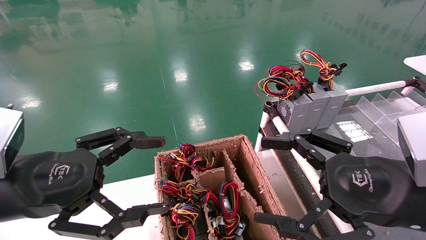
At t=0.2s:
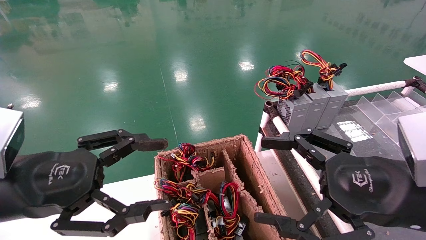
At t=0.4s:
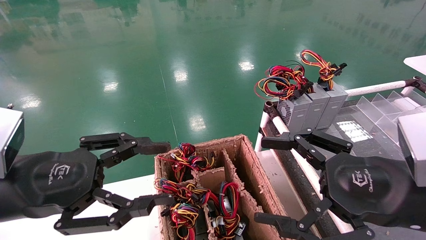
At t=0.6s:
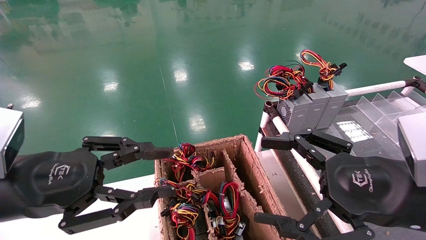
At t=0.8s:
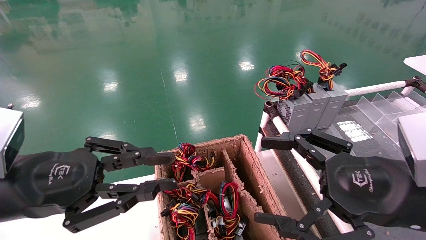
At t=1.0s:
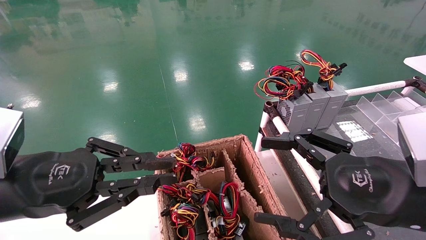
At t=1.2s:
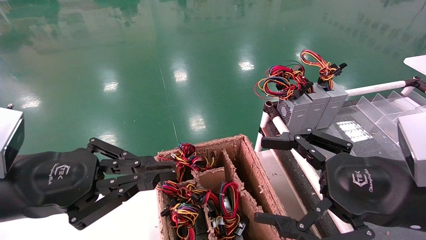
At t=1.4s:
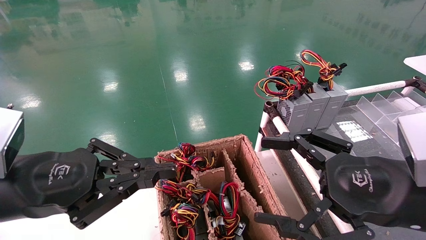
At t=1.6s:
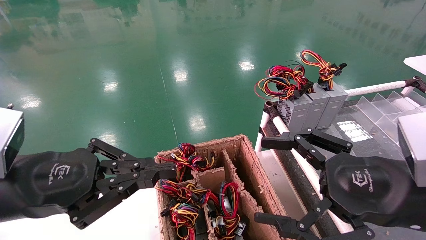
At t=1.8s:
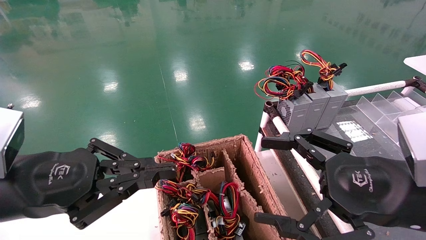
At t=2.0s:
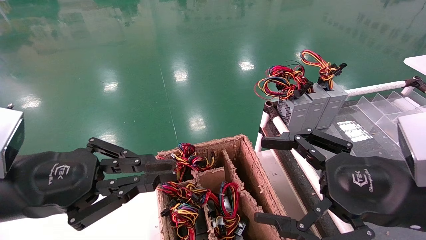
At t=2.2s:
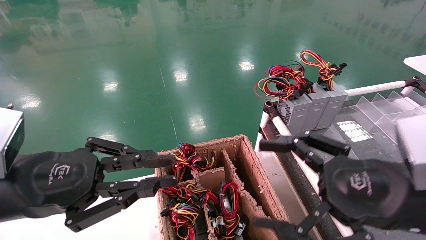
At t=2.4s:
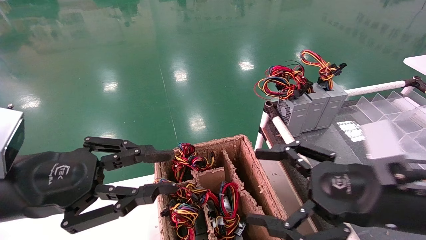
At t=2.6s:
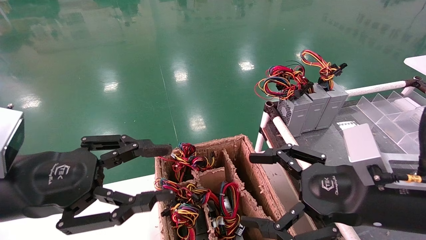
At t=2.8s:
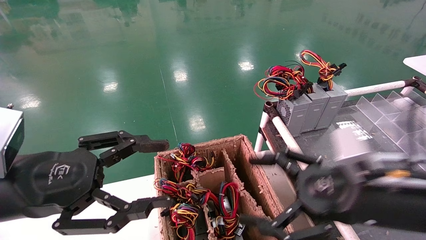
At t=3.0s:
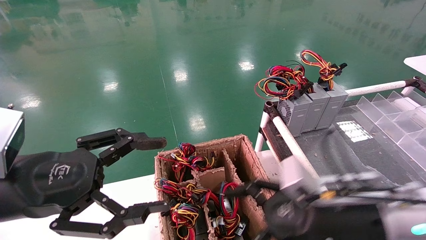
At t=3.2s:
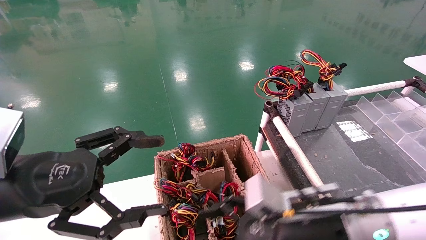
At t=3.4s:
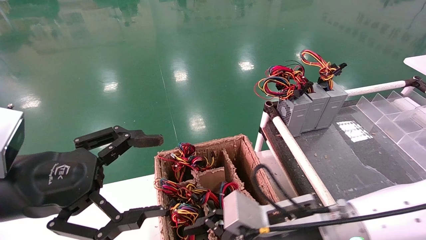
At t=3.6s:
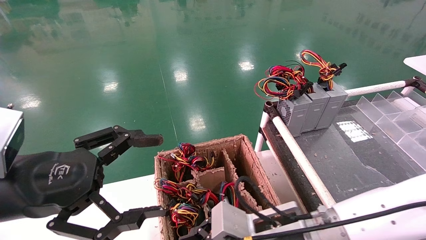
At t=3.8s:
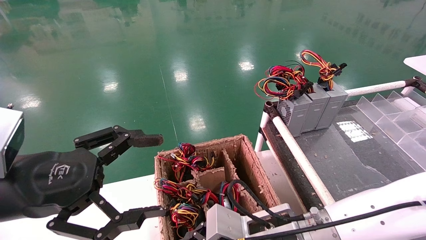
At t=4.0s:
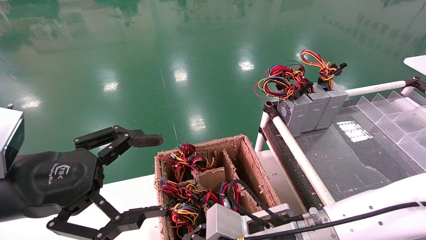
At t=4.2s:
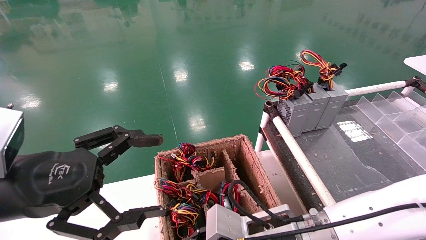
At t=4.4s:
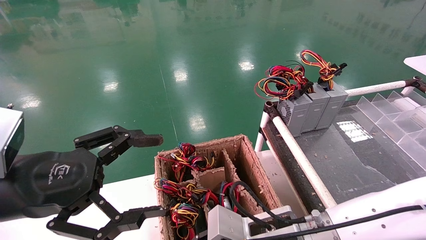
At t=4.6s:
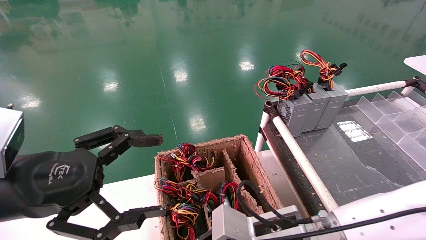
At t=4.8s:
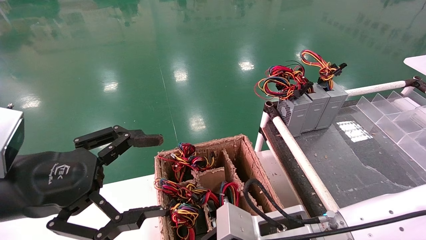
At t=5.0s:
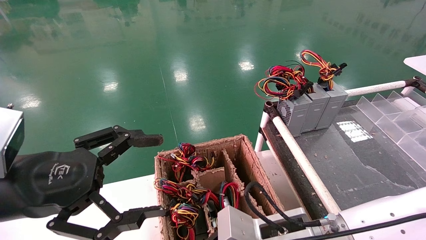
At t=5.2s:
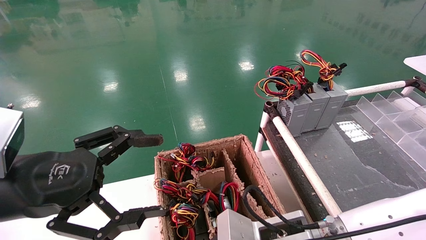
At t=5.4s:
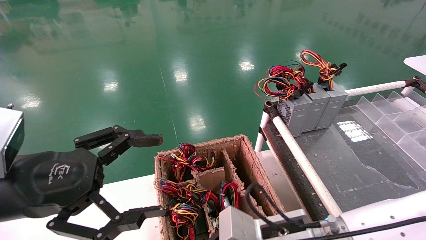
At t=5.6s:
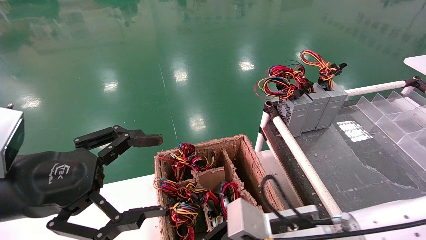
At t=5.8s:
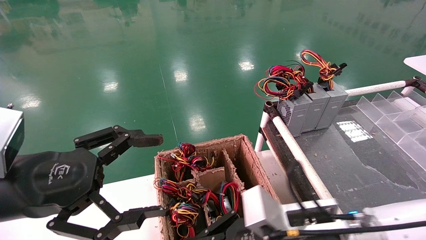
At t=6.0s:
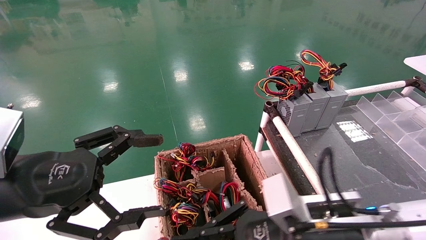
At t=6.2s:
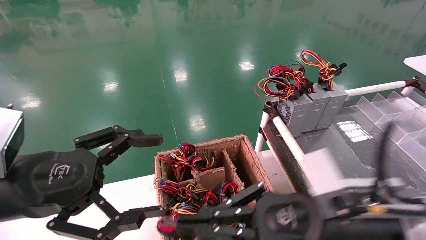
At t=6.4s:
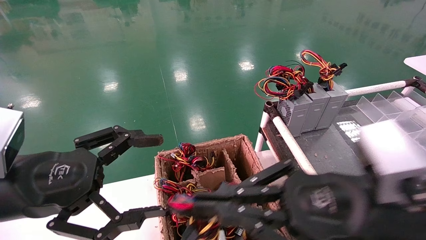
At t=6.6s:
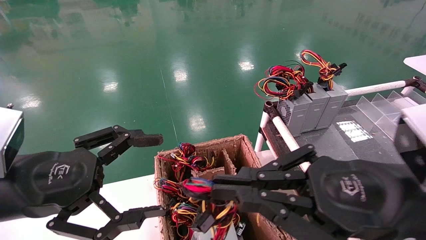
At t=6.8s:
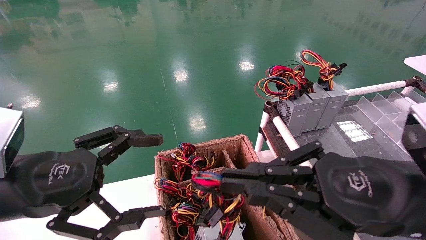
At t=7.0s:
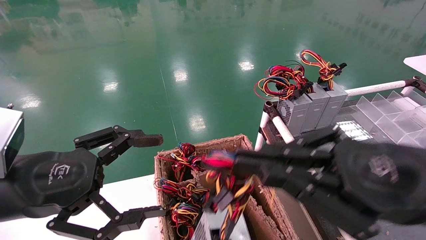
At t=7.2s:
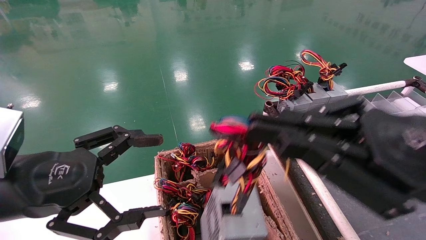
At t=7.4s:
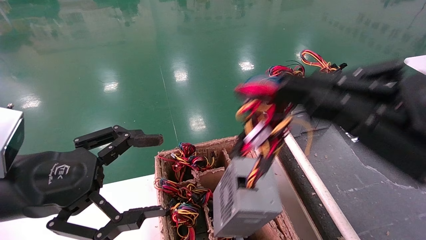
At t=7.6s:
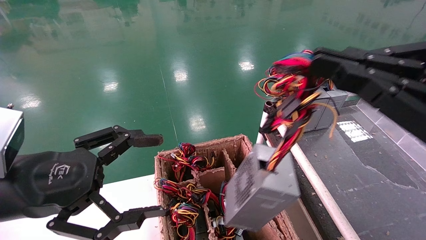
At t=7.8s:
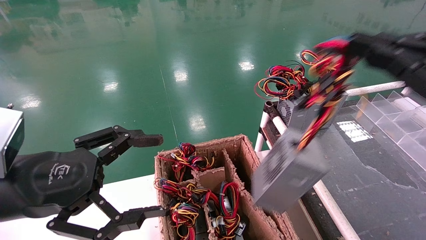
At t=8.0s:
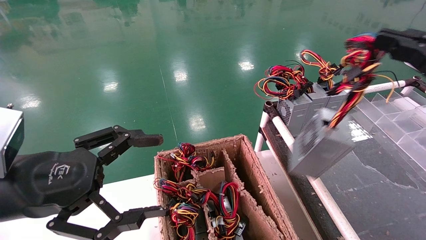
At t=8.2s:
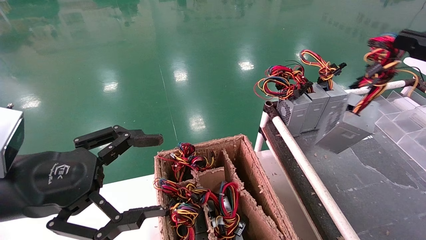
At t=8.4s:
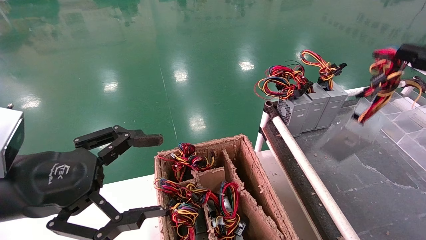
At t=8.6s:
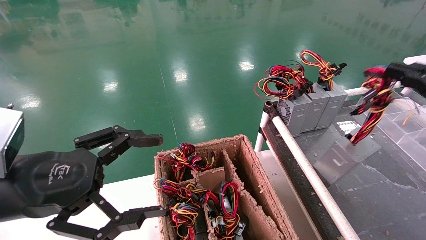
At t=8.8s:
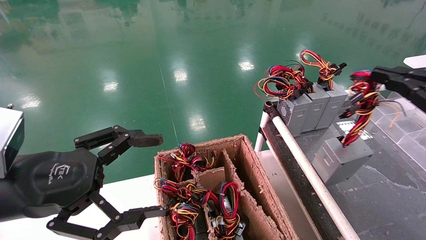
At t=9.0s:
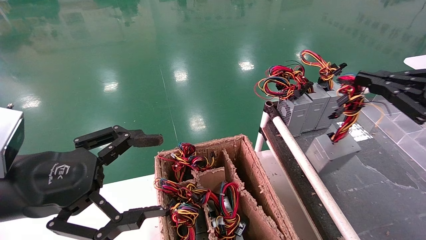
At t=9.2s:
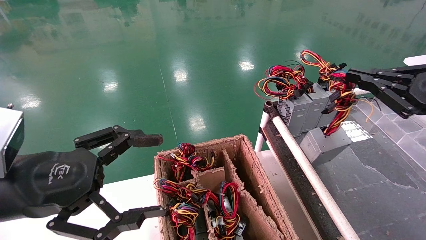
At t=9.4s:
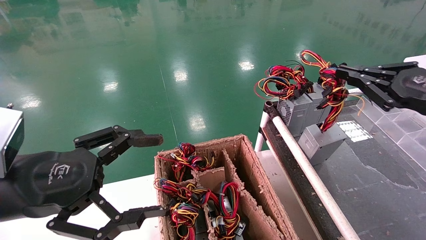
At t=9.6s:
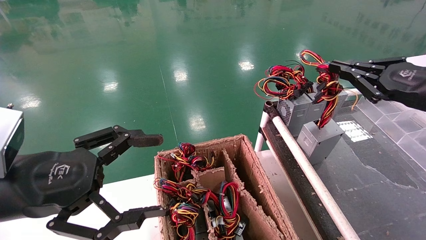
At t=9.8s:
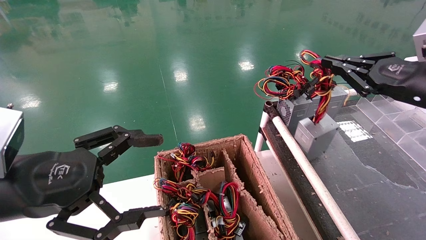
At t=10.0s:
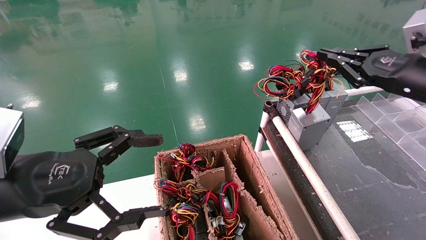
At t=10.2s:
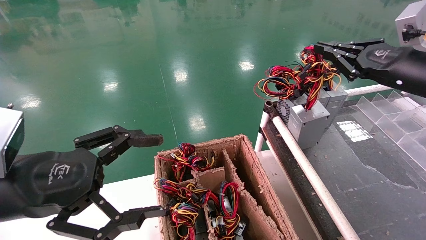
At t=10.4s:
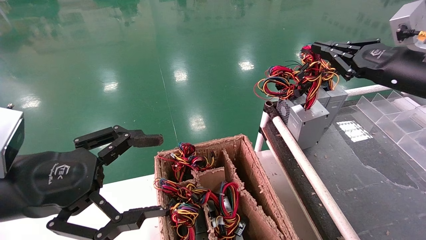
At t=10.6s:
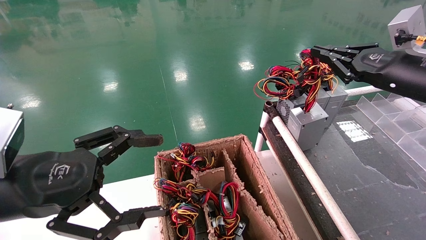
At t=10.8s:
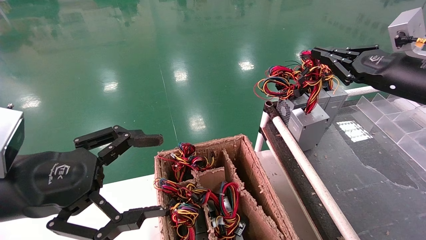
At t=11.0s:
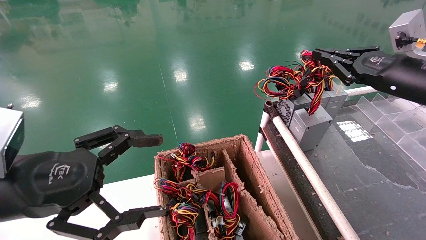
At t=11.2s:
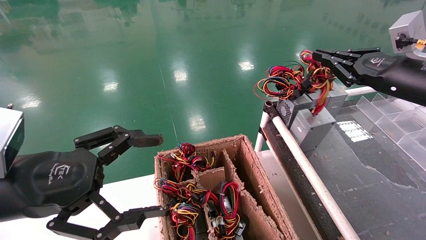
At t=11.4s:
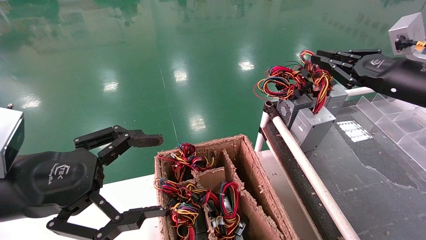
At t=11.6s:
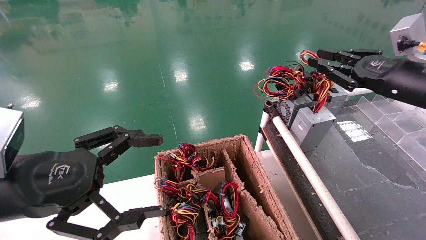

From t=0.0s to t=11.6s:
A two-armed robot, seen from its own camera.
Step, from t=1.2s to t=4.8s: Grab and lift the power supply from the large box.
Step, from t=5.0s to t=11.0s: Place the power supply on the operating table.
From t=0.0s to t=1.4s: The left gripper closes.
From t=1.4s to t=2.8s: The right gripper shifts by roughly 5 cm. Meanwhile the left gripper opens its fingers.
From t=2.8s to t=4.4s: The right gripper moves to the left and downward, roughly 15 cm, and closes up; the left gripper opens its fingers.
From t=4.4s to t=5.8s: The right gripper changes place by roughly 5 cm, and closes.
From t=5.8s to t=7.2s: The right gripper goes some 20 cm upward and to the right.
From t=7.2s to t=8.8s: The right gripper heads to the right, covering roughly 15 cm.
From t=8.8s to t=10.2s: The right gripper travels forward and to the left by roughly 15 cm.
From t=10.2s to t=11.6s: There are only small adjustments of the grippers.

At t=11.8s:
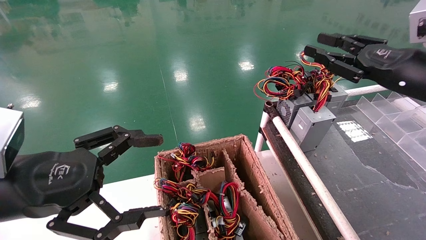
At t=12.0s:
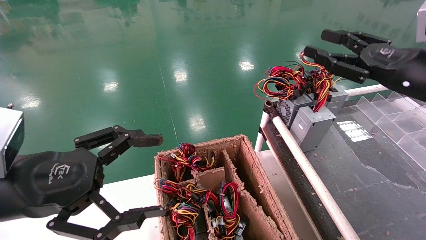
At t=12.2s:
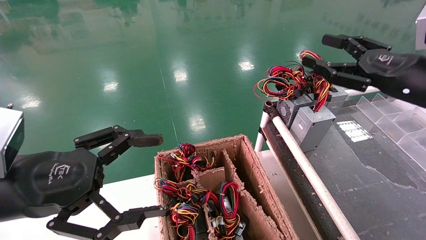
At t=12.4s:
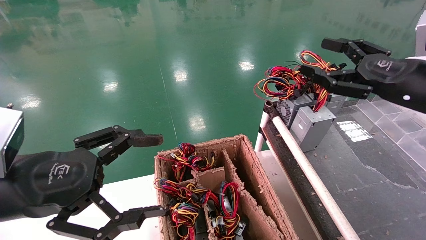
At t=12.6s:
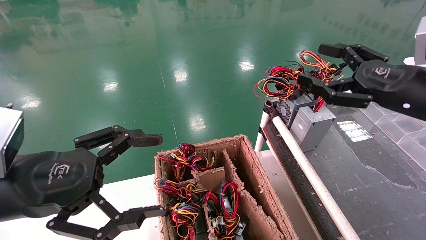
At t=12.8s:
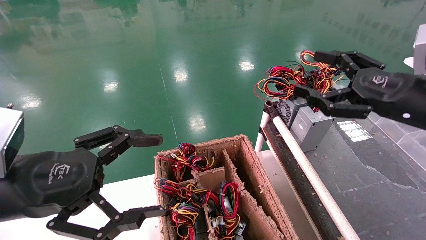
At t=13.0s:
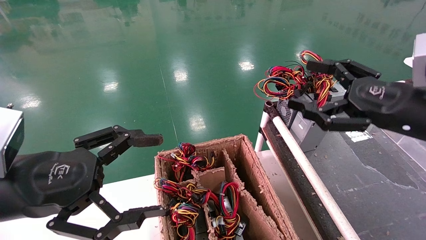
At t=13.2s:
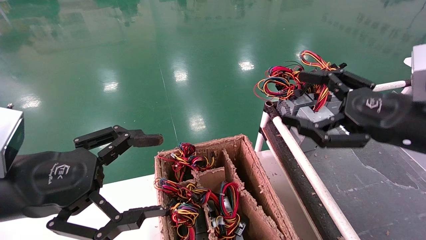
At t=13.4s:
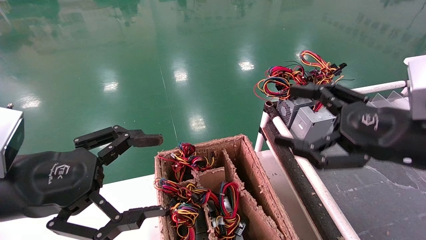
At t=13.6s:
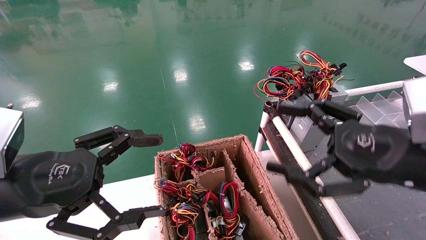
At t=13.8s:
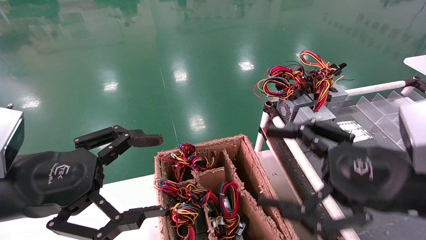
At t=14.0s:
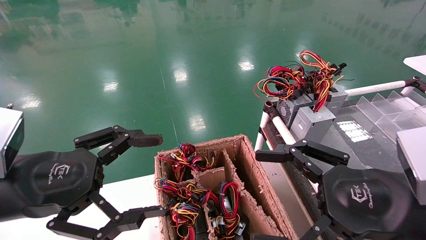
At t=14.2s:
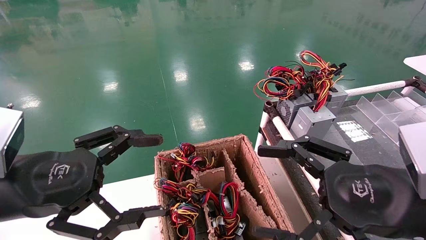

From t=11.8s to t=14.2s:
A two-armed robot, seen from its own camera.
From t=11.8s to t=13.0s: The right gripper heads backward, covering roughly 5 cm, and opens.
From t=13.0s to t=14.2s: The right gripper goes some 15 cm backward, to the left and downward.
